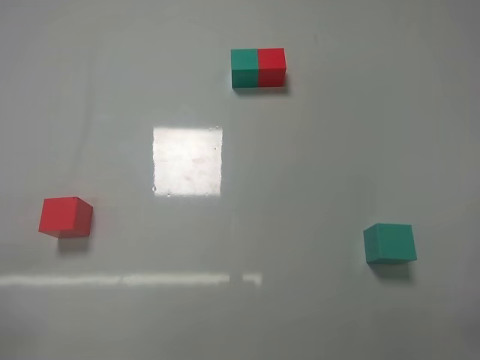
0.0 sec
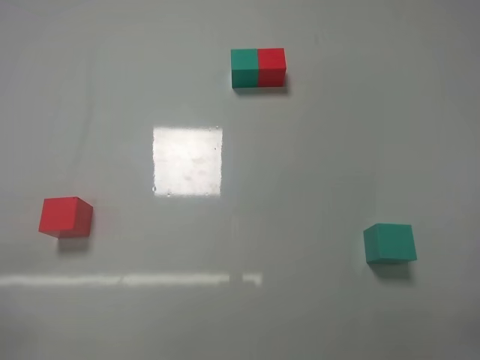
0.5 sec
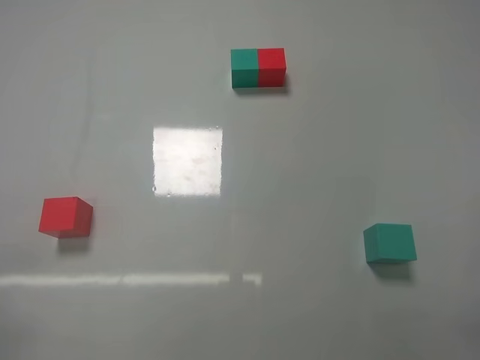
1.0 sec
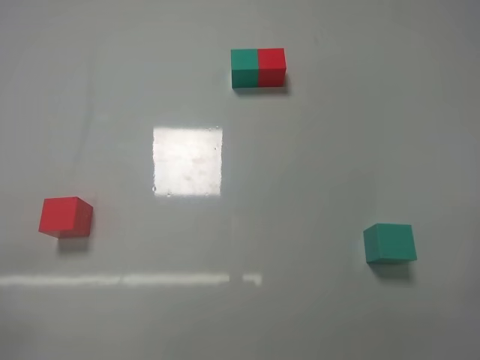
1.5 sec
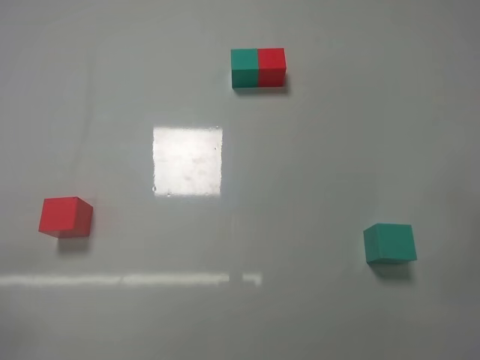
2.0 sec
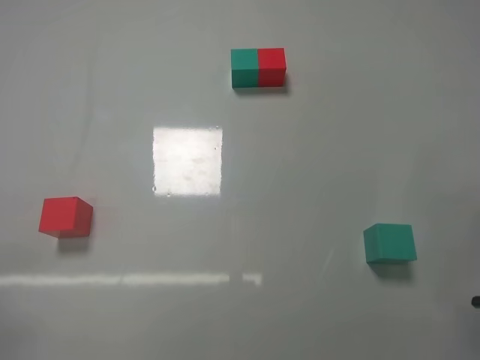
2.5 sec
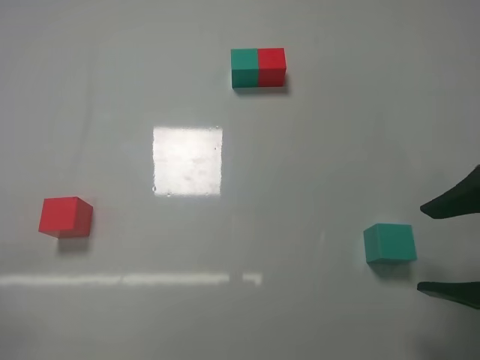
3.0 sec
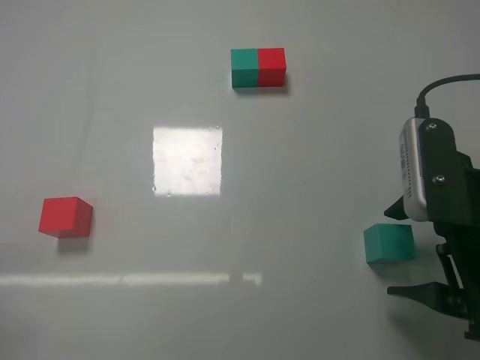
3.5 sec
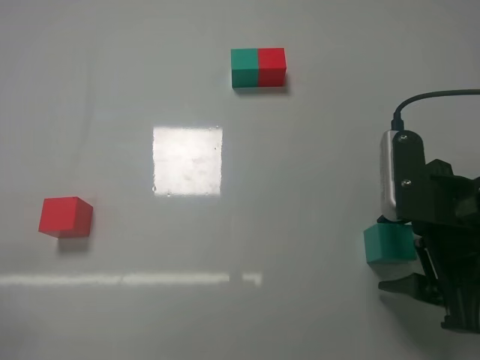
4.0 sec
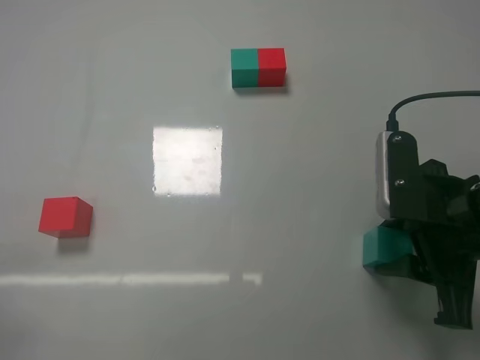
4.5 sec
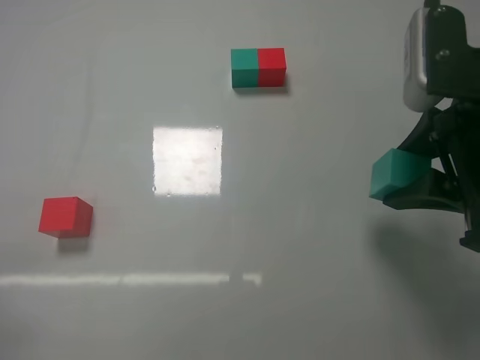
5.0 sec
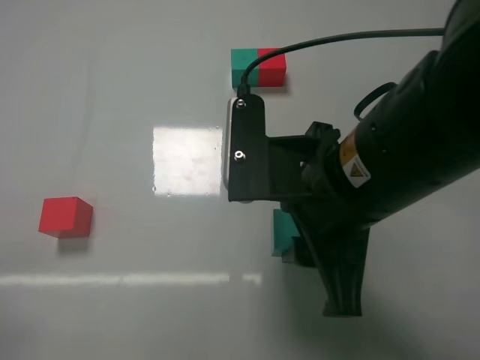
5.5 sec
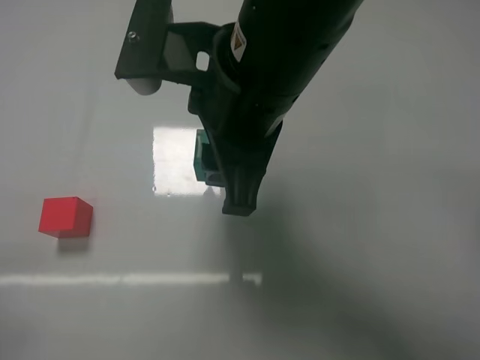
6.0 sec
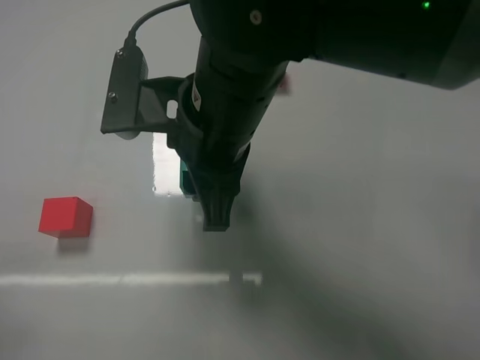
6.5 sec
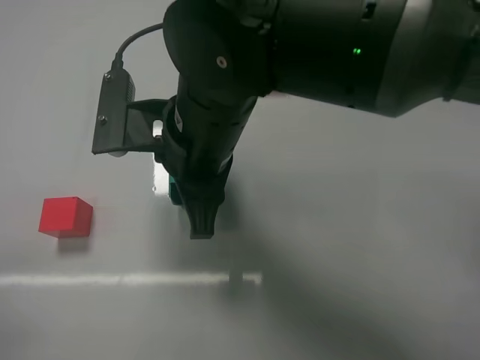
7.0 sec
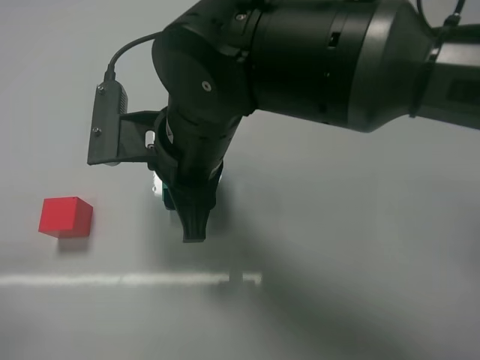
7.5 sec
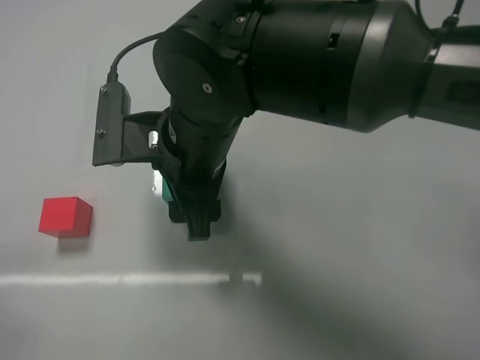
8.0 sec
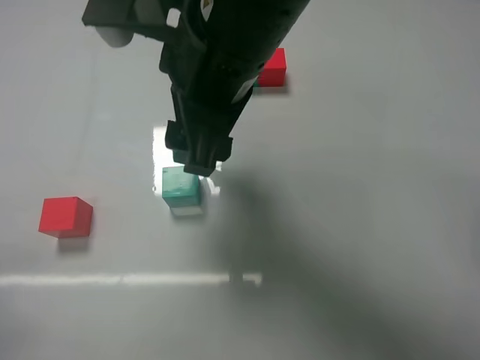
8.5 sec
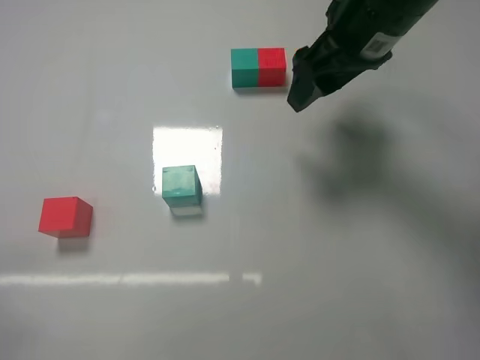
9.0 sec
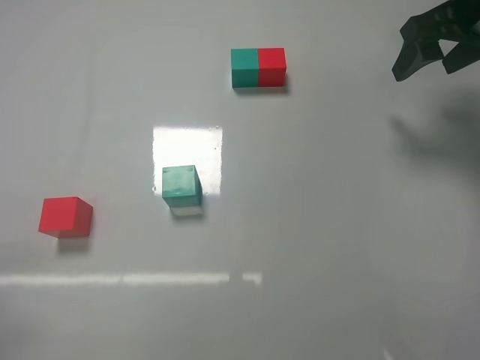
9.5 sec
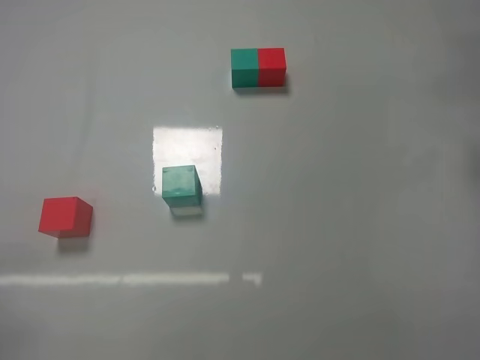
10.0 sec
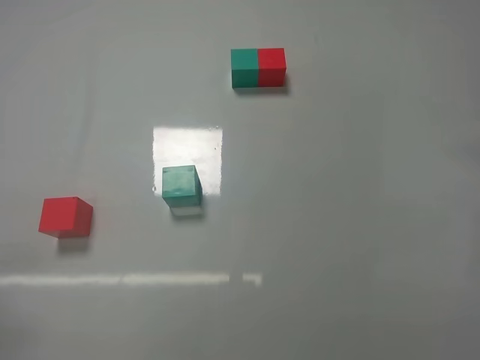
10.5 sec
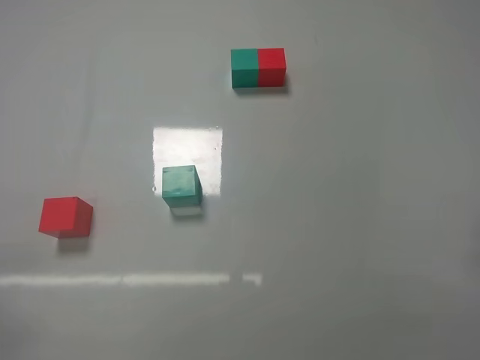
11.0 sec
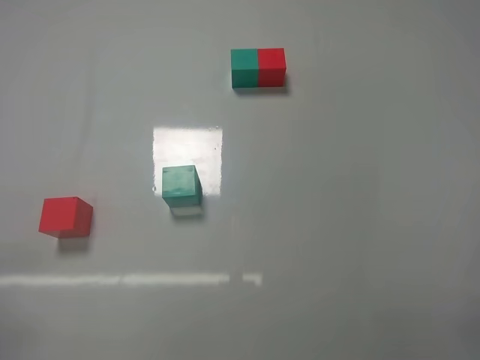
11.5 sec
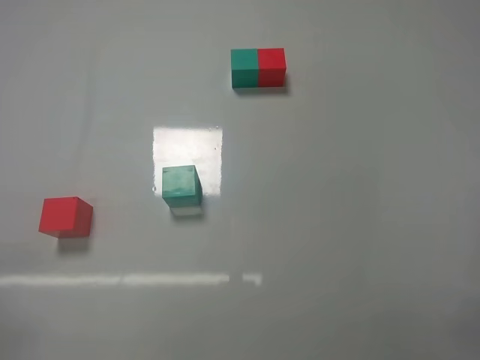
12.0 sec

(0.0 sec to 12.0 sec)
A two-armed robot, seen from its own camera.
Task of the whole recording: According to the building block template in front, assemble the scattered blocks together.
Step, 0.0 sec - 4.0 sec: Grasp the green block with right gripper.
Step, 4.5 sec - 8.0 sec: Adjust the position of the cube with the right gripper.
2.0 sec - 4.0 sec: The right gripper shifts some 15 cm forward, to the left and downward.
4.0 sec - 6.0 sec: The right gripper shifts some 25 cm to the left and upward, and closes its fingers.
6.0 sec - 8.0 sec: The right gripper moves downward and to the left, about 10 cm, and opens its fingers.
8.0 sec - 10.0 sec: The right gripper goes some 35 cm to the right.

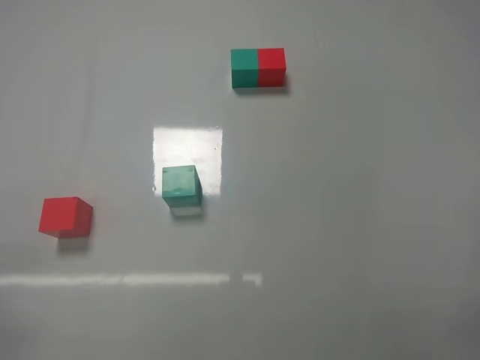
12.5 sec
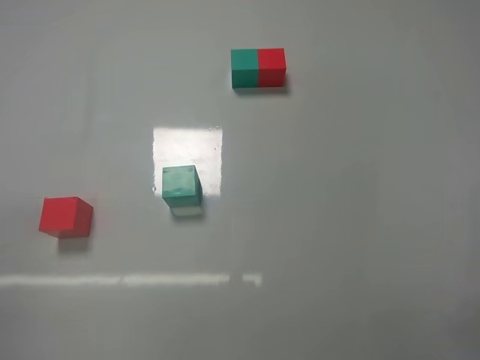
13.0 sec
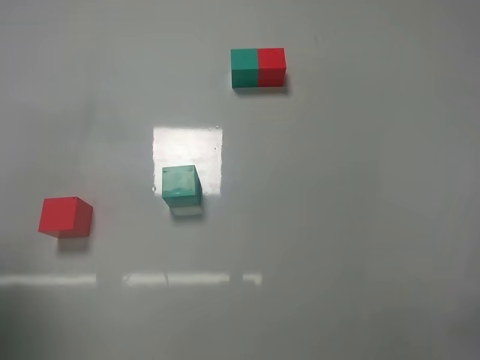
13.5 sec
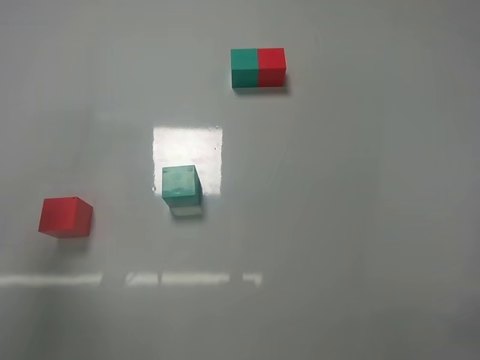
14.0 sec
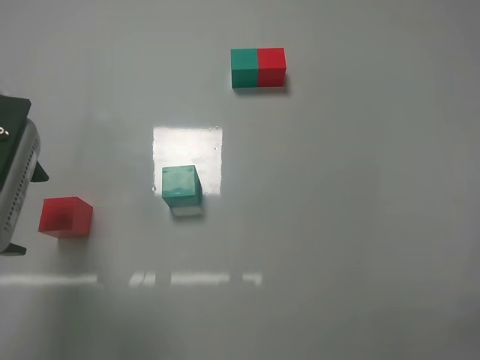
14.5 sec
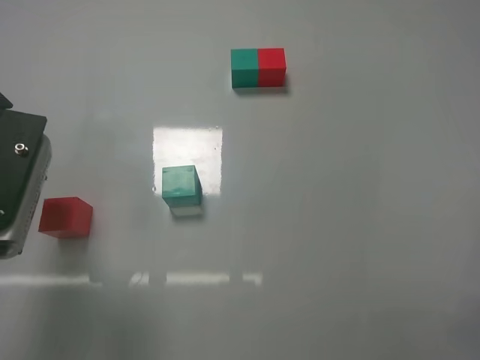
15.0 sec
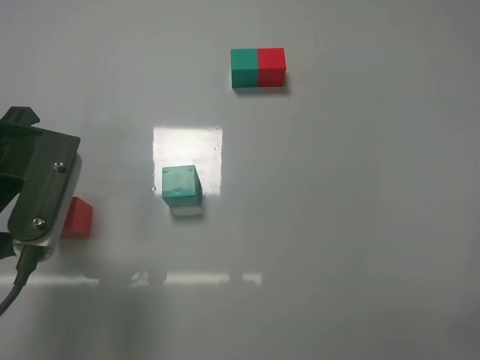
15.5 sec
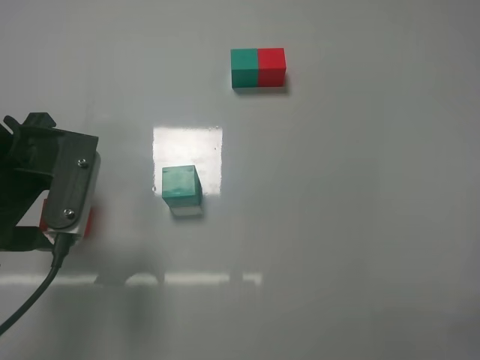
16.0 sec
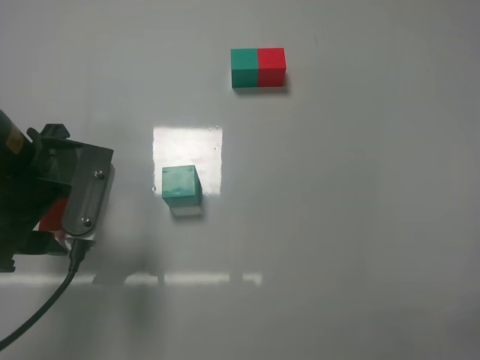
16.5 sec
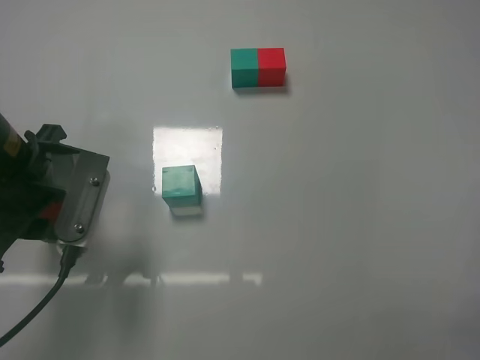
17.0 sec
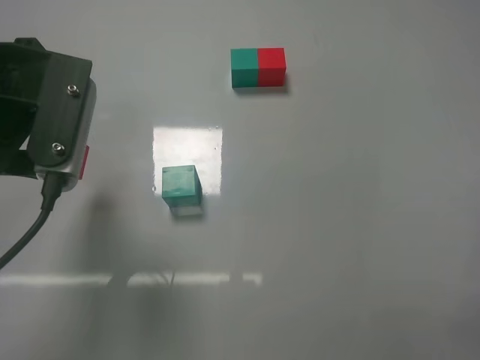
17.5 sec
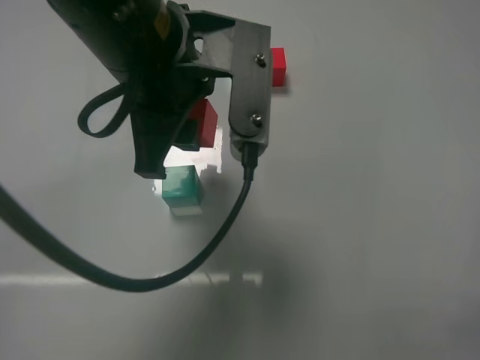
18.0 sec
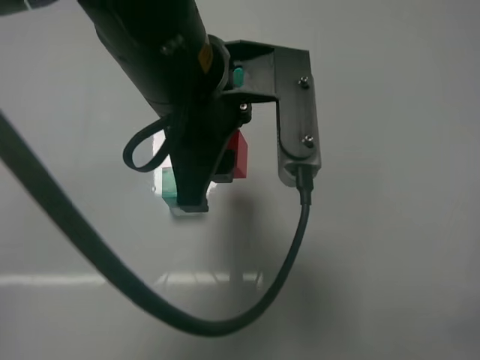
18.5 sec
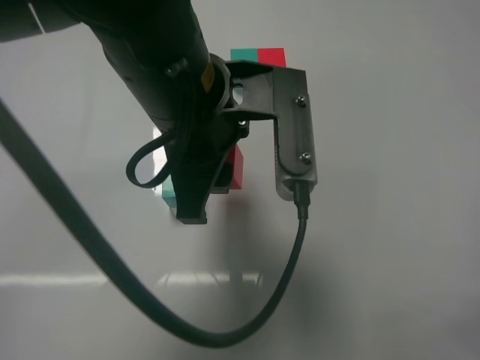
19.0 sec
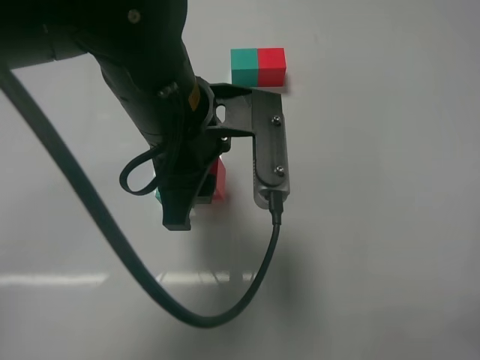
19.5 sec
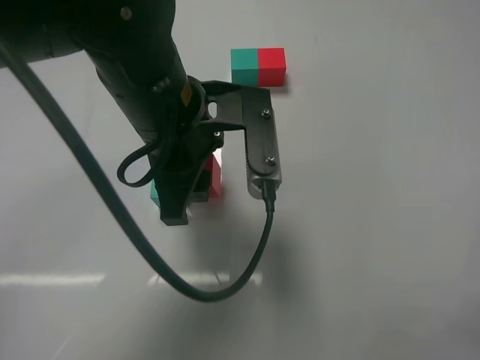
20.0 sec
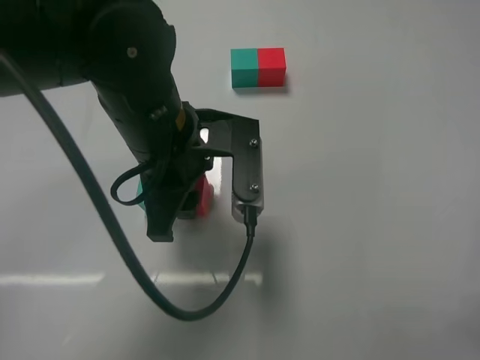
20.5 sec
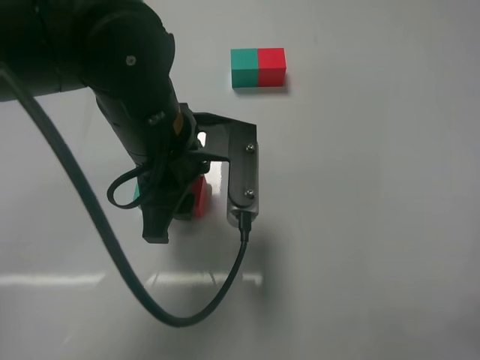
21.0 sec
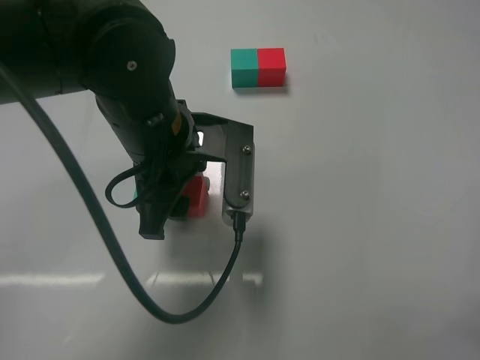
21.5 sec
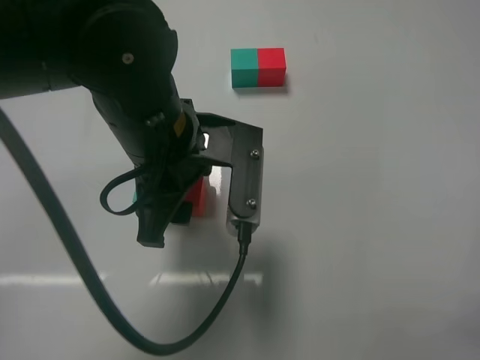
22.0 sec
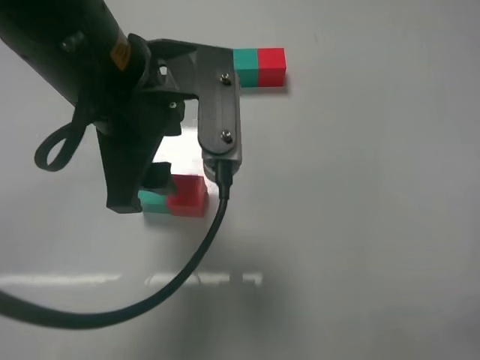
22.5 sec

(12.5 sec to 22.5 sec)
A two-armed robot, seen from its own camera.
Task of the whole recording: According to the building block template in front, assemble the scattered blocks together.
Step, 12.5 sec - 16.5 sec: Grasp the red block with left gripper.
Step, 17.0 sec - 22.0 sec: Put the red cube on the right of the green cube with the left gripper.
12.5 sec - 14.5 sec: The left gripper moves forward, upward and to the right, some 25 cm, and opens its fingers.
14.5 sec - 16.5 sec: The left gripper heads forward and downward, covering some 10 cm.
16.5 sec - 18.5 sec: The left gripper is displaced to the right by approximately 15 cm, and closes up.
18.5 sec - 20.5 sec: The left gripper heads downward, covering approximately 5 cm.
20.5 sec - 22.5 sec: The left gripper is displaced upward by roughly 5 cm, and opens.

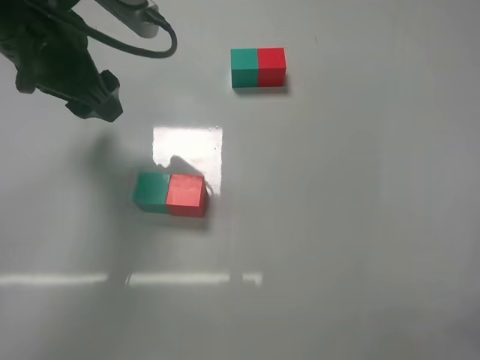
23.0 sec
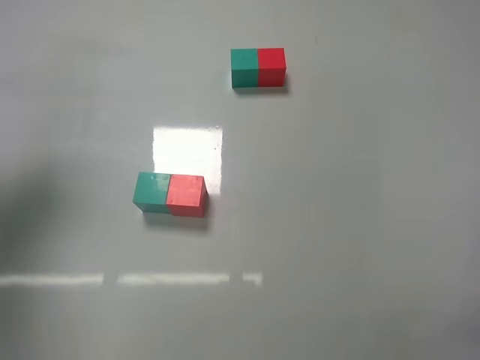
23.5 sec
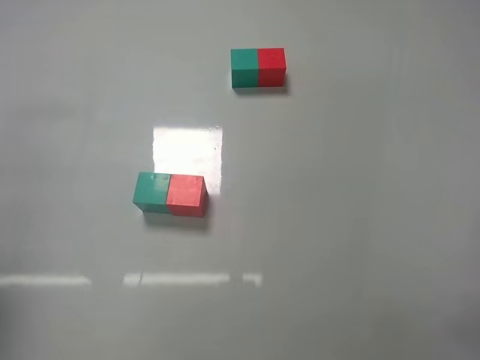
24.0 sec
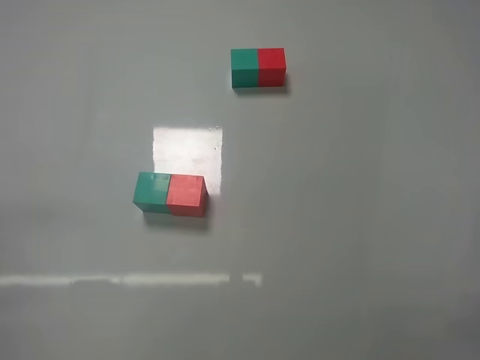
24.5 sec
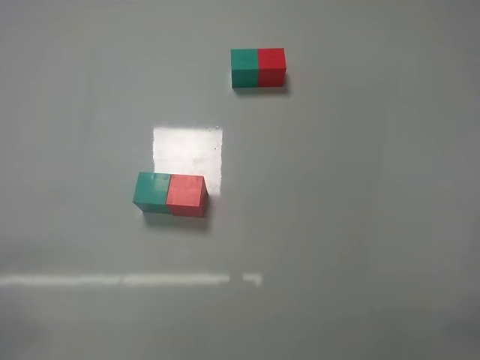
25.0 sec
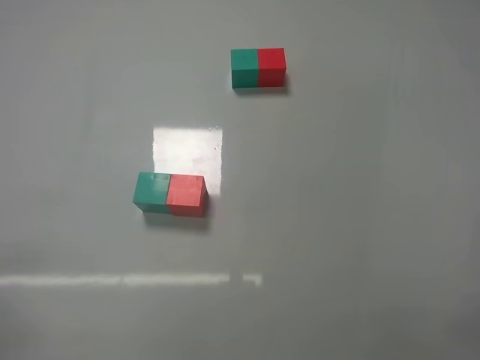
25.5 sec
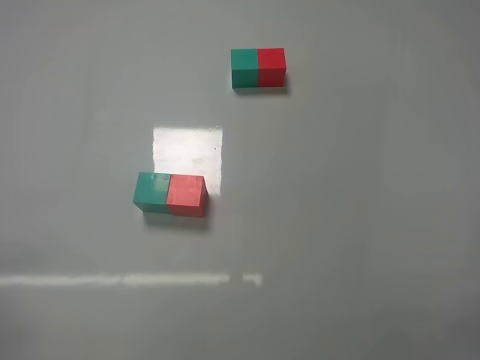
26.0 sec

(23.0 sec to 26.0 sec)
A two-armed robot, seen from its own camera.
Task of the whole recording: According to the building block template in front, assemble the scattered blocks together.
23.0 sec - 24.5 sec: The left gripper shifts some 30 cm backward, to the left and downward.
